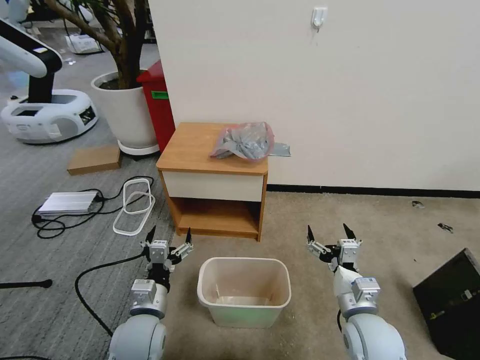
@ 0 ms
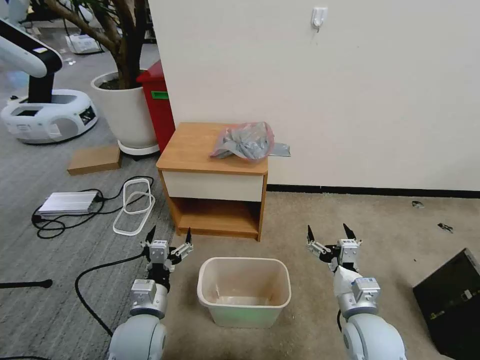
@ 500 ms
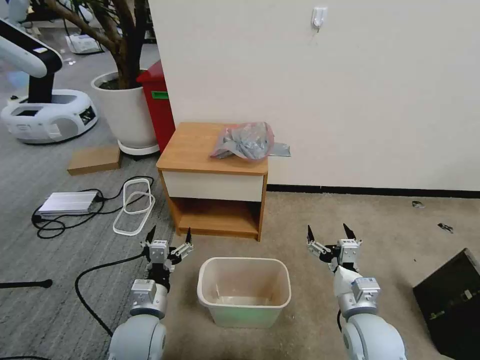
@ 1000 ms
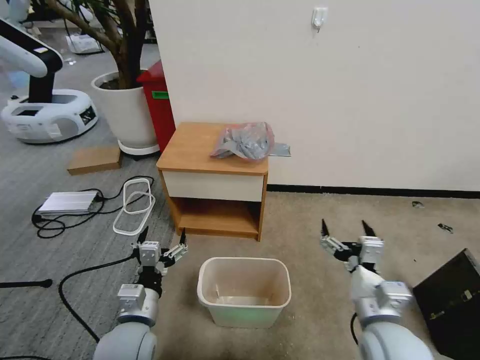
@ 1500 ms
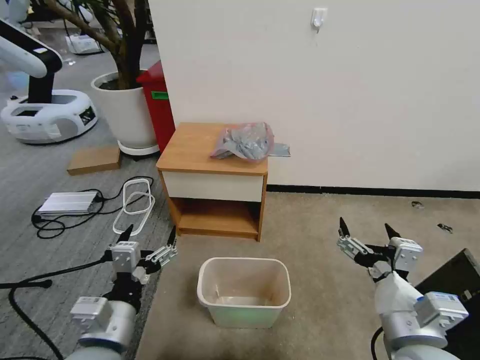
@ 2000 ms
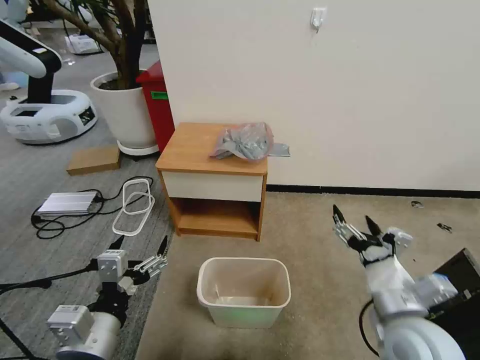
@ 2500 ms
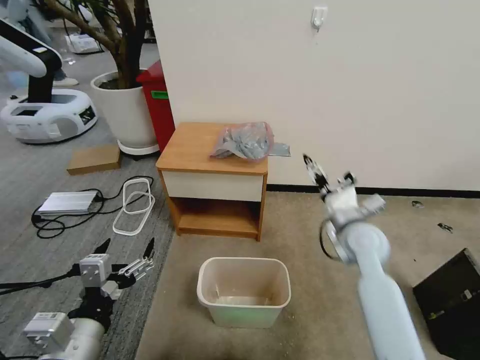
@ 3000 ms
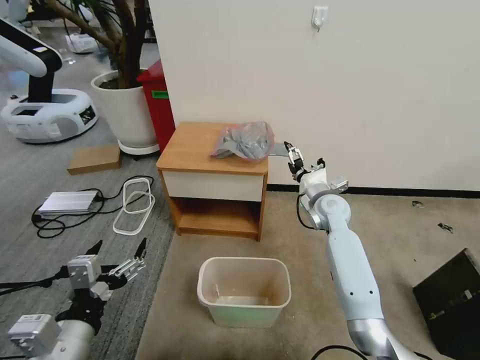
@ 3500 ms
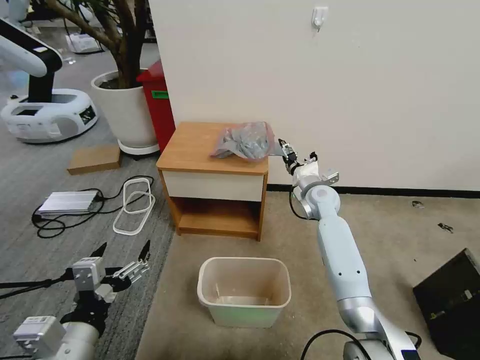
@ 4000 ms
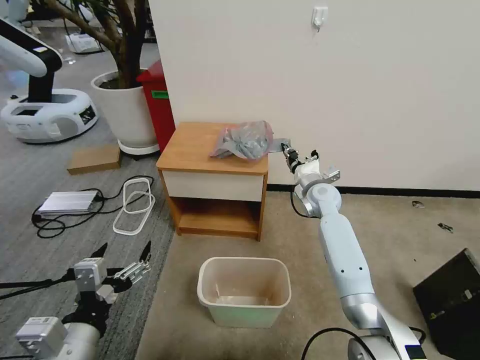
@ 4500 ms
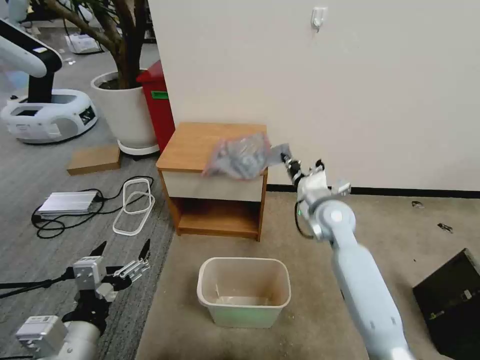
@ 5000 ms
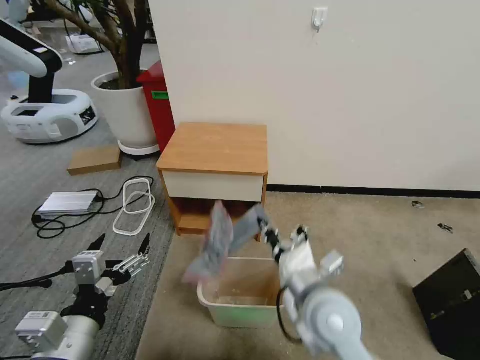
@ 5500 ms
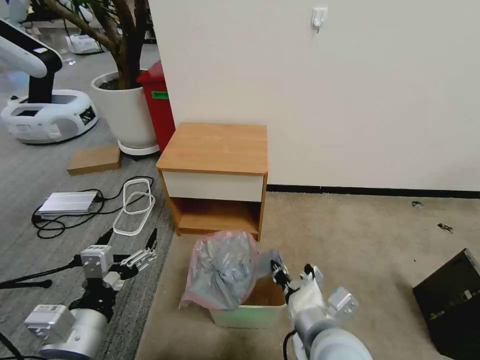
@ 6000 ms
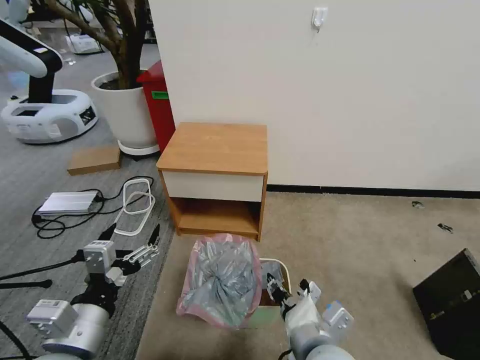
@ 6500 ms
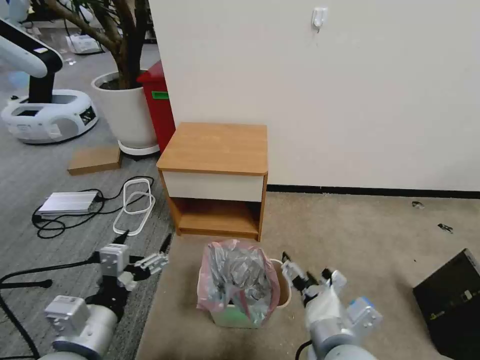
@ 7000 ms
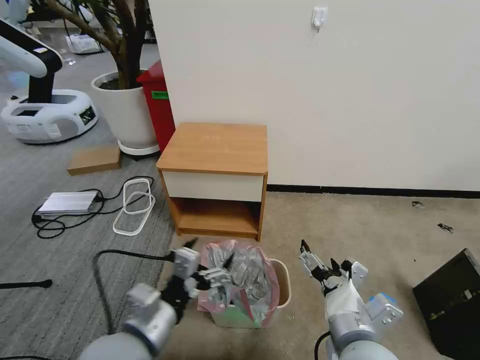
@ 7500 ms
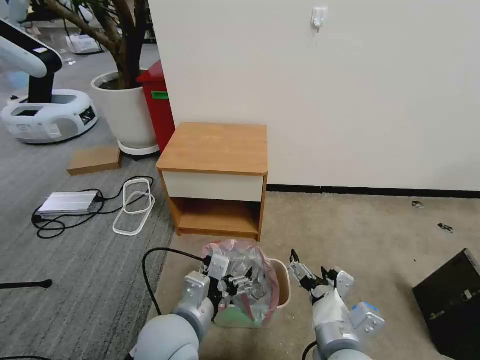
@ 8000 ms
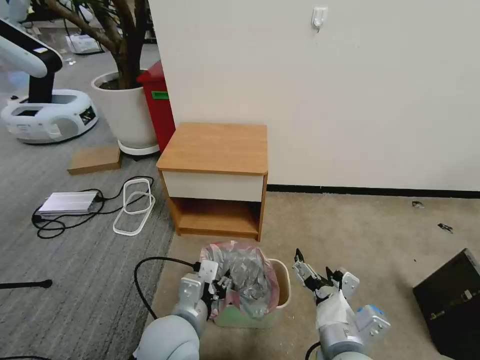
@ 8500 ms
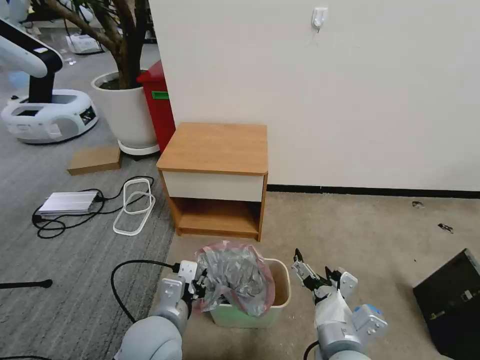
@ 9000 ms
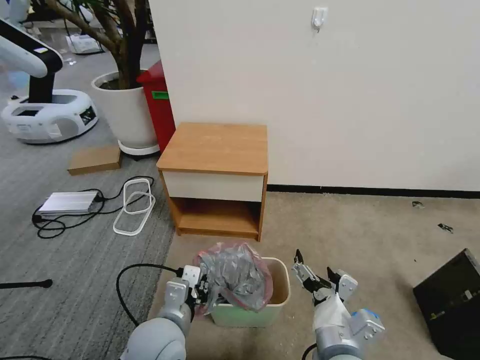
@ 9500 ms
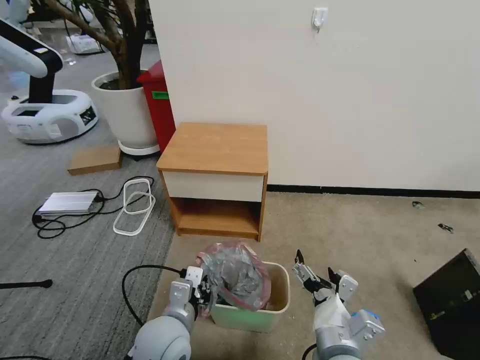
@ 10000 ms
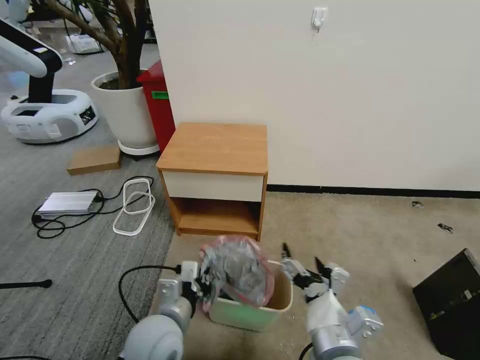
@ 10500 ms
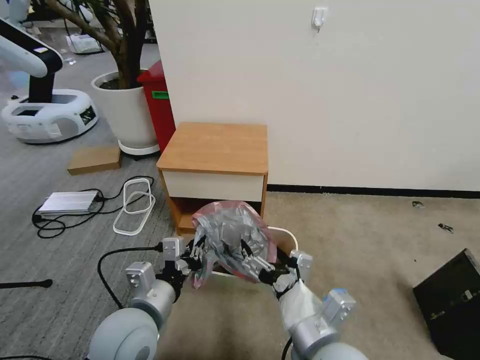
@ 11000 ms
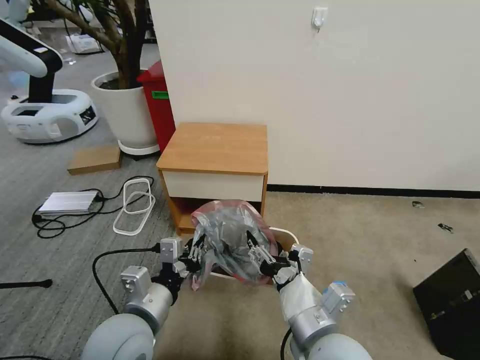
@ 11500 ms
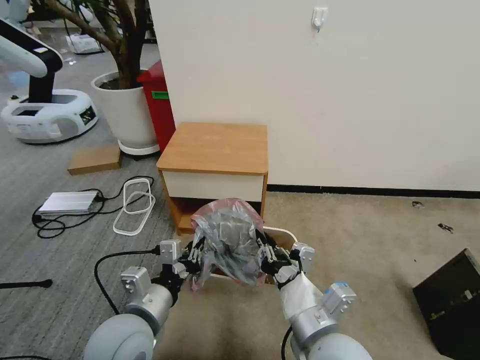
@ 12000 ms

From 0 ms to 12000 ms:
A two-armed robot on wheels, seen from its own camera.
Task of the whole recording: Pick up the garbage bag from the table and place it over the trash can.
From 2000 ms to 4000 ms: The left gripper changes place by approximately 5 cm. Meanwhile the right gripper heads forward, covering some 40 cm.
From 4000 ms to 6000 ms: The right gripper is displaced backward by about 35 cm, and closes its fingers.
From 6000 ms to 8000 ms: The left gripper goes about 15 cm to the right and forward, while the right gripper opens up.
From 8000 ms to 10000 ms: The left gripper moves downward, some 5 cm, and closes.
From 10000 ms to 12000 ms: Both grippers move upward, some 5 cm. The right gripper closes up.

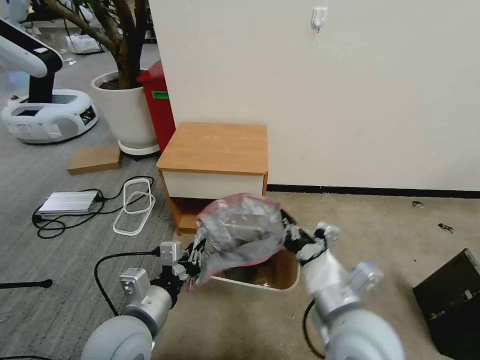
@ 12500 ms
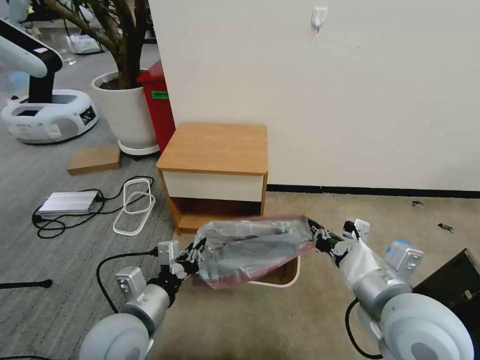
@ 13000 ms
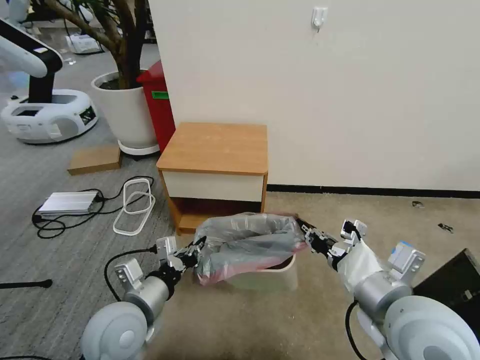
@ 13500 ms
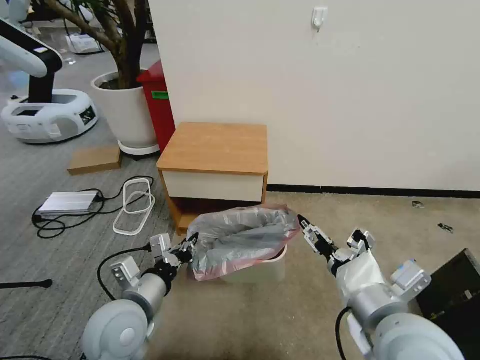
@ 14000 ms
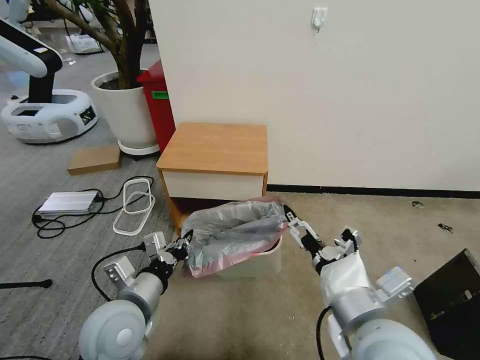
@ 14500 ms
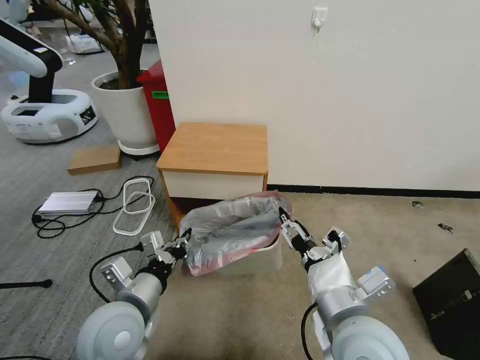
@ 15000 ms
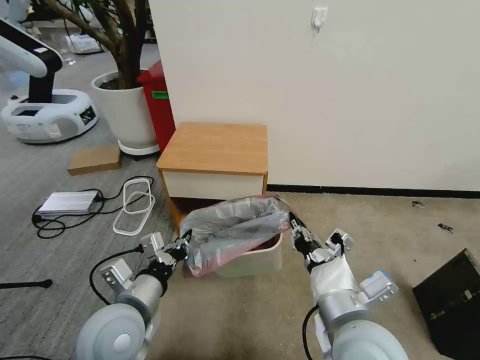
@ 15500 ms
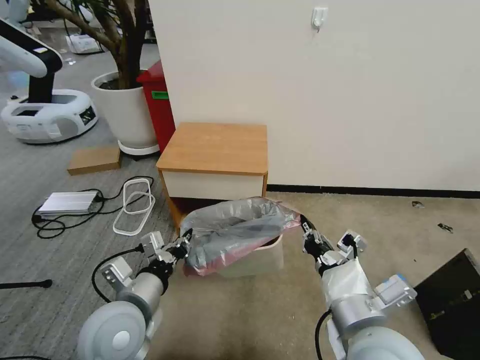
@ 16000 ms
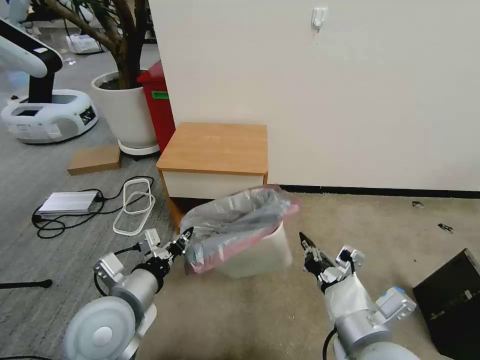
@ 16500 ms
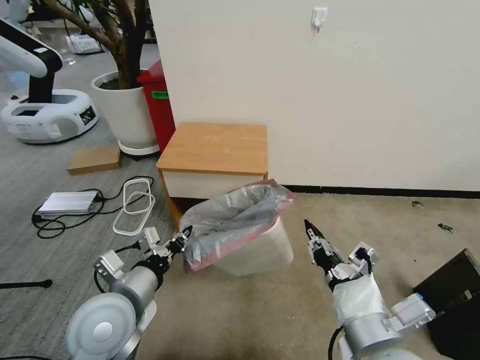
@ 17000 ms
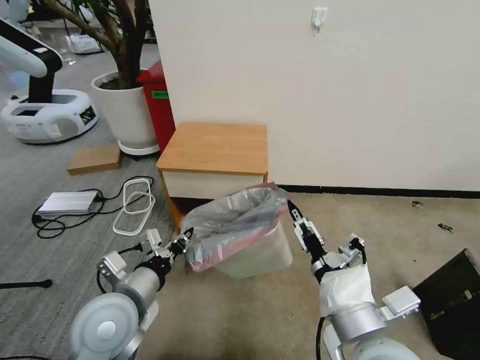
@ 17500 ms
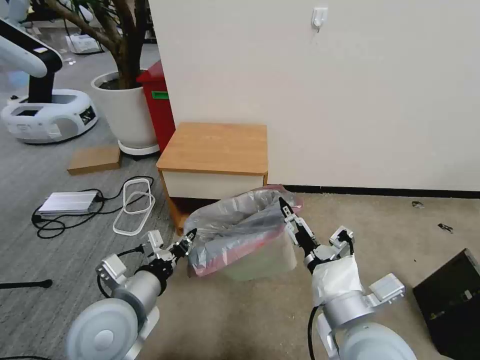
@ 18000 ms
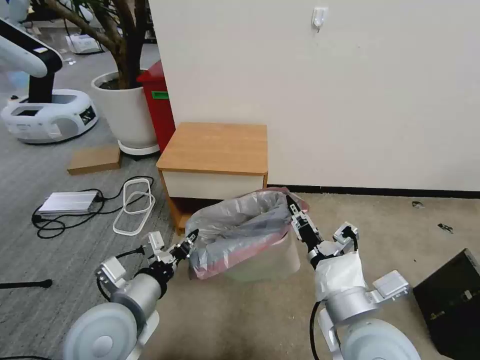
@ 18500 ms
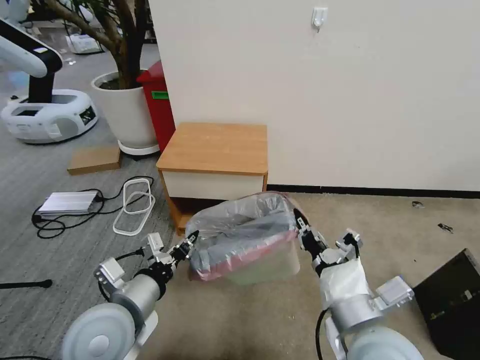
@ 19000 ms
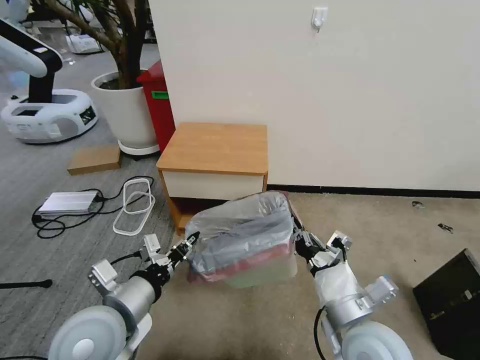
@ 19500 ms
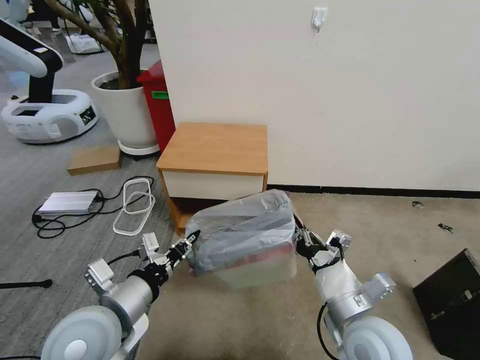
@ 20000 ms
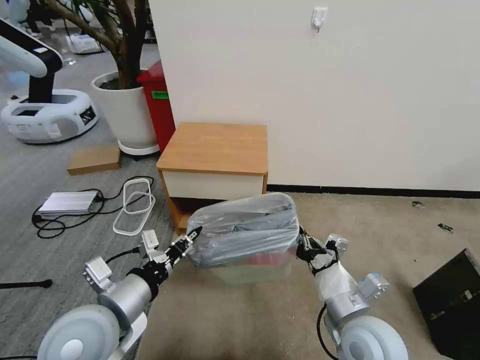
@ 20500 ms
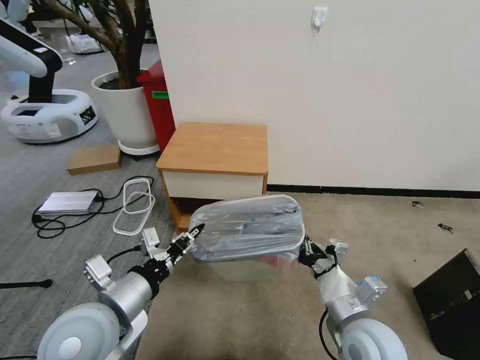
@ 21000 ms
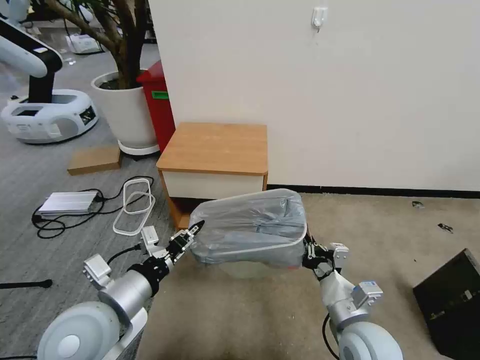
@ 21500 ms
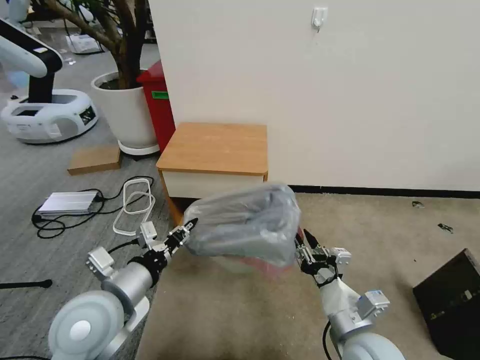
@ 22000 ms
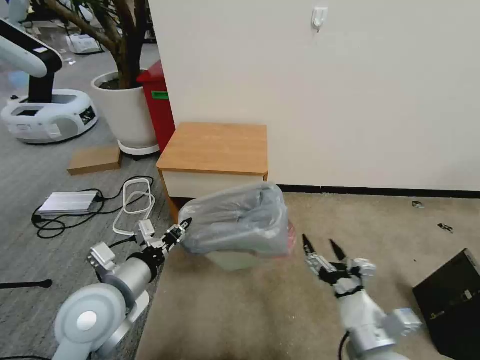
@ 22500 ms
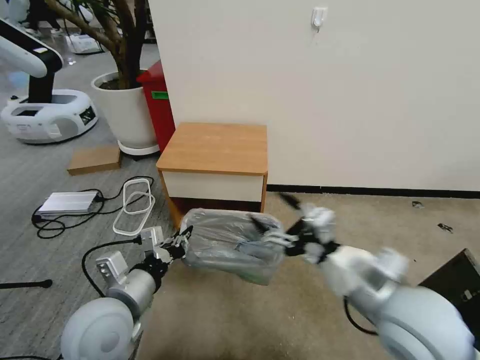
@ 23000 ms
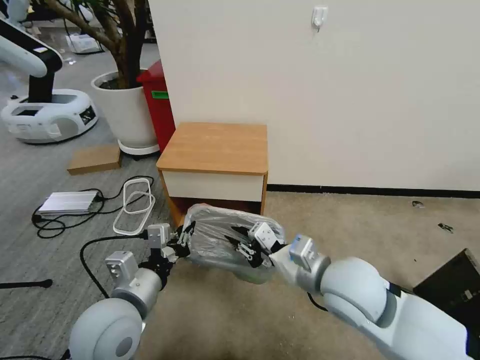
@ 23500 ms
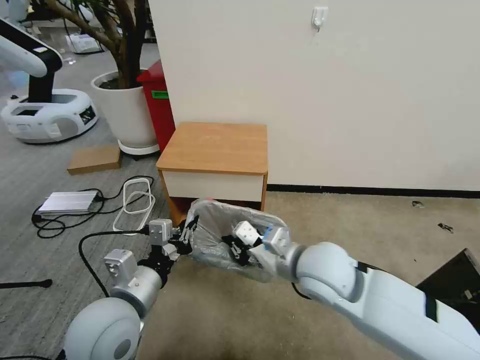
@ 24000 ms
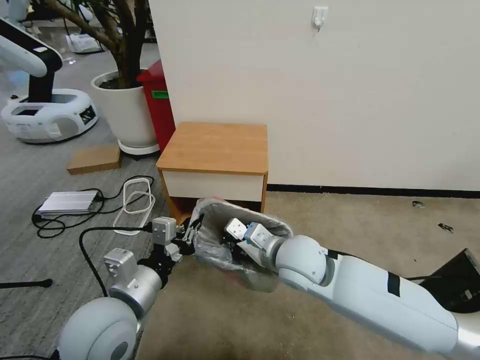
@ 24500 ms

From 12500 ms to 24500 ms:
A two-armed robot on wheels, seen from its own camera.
Task of the whole recording: Pick up the garbage bag from the table and place it over the trash can.
From 12500 ms to 14500 ms: The right gripper opens up.
From 14500 ms to 16500 ms: The right gripper closes up.
From 16500 ms to 18500 ms: The right gripper opens its fingers.
From 18500 ms to 20500 ms: The right gripper travels downward by roughly 10 cm, and closes its fingers.
From 20500 ms to 22500 ms: The right gripper ends up about 5 cm from where it was, and opens.
From 22500 ms to 24500 ms: The right gripper travels forward and to the left by roughly 20 cm, and closes its fingers.

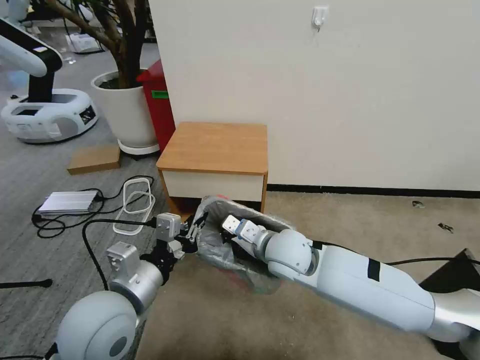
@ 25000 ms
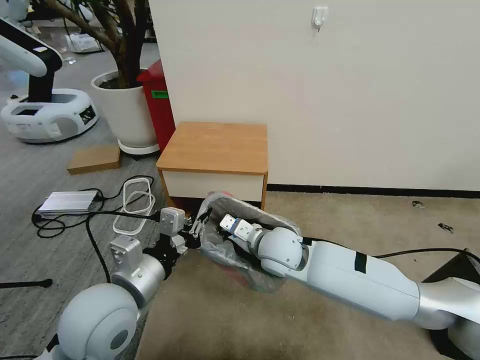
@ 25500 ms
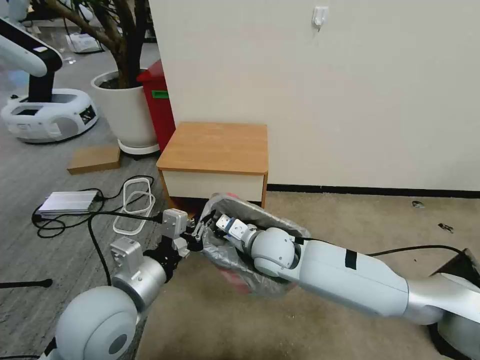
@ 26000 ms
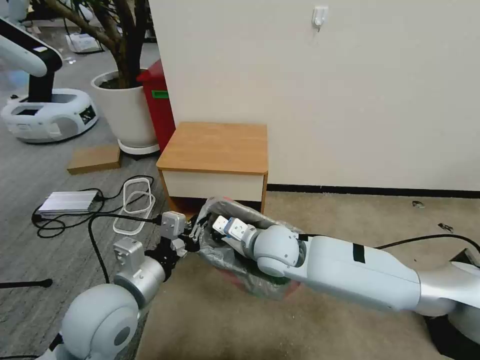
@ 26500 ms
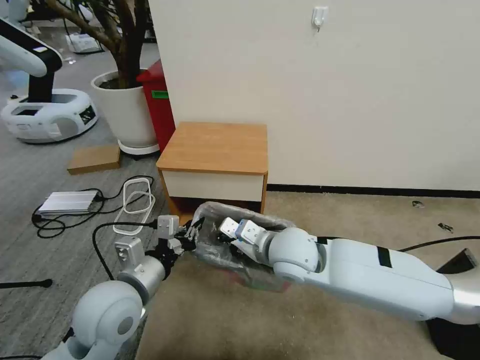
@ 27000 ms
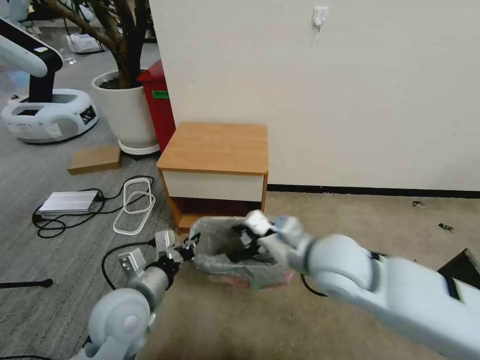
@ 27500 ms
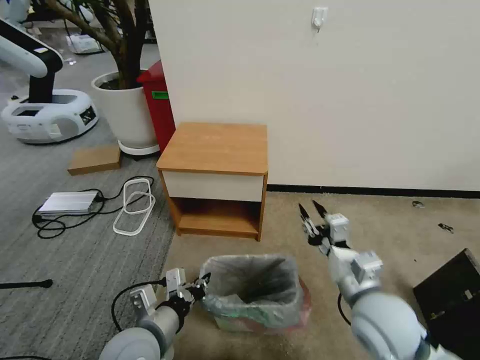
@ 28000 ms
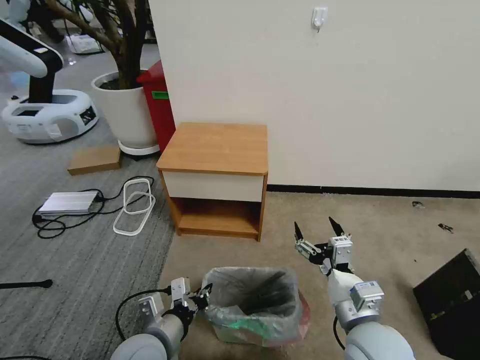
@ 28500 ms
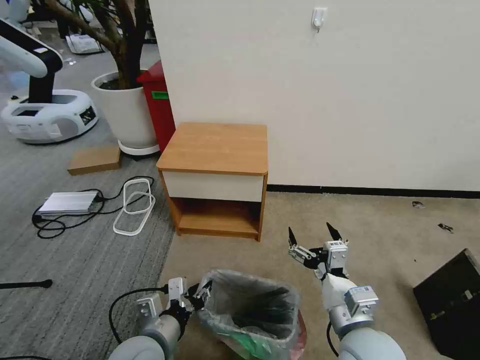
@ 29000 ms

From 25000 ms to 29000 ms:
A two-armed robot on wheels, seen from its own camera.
Task of the whole recording: Pick up the garbage bag from the table and place it over the trash can.
From 25000 ms to 27000 ms: The grippers move only a little.
From 27000 ms to 29000 ms: The left gripper shifts approximately 10 cm downward and backward, and opens up, while the right gripper moves backward and to the right, approximately 20 cm, and opens.
